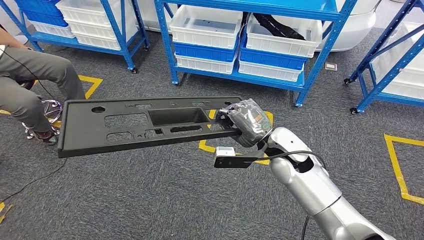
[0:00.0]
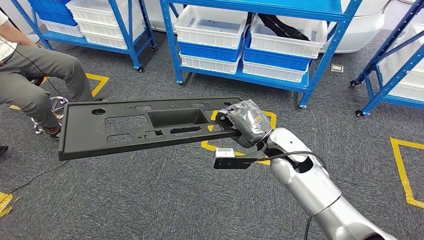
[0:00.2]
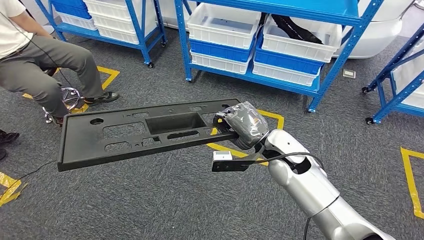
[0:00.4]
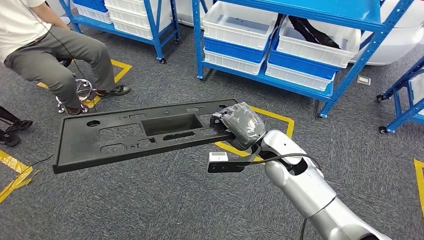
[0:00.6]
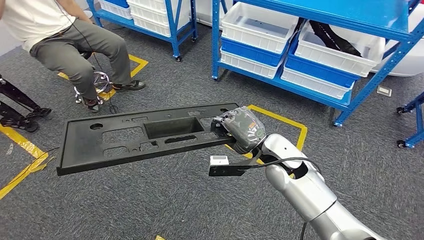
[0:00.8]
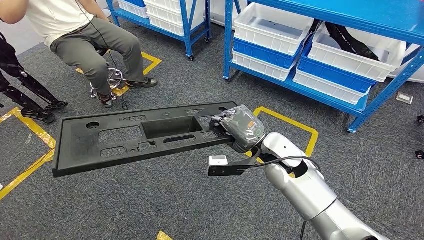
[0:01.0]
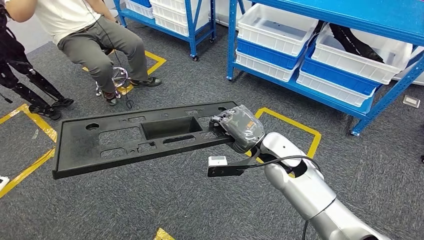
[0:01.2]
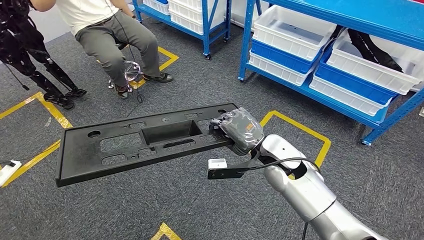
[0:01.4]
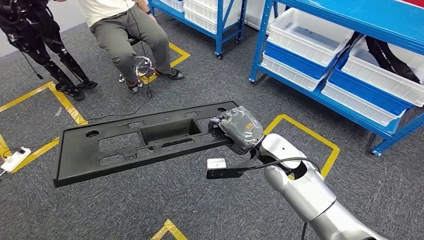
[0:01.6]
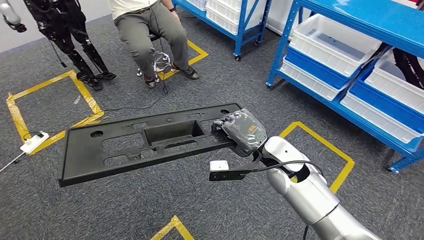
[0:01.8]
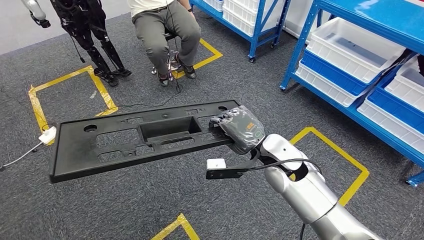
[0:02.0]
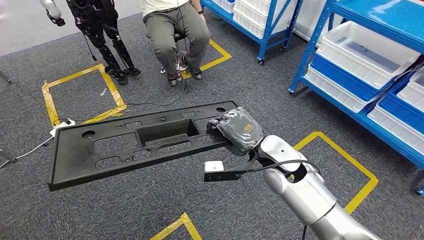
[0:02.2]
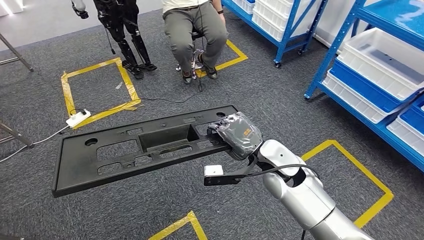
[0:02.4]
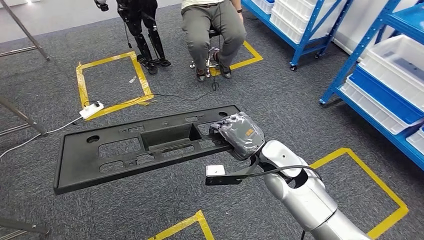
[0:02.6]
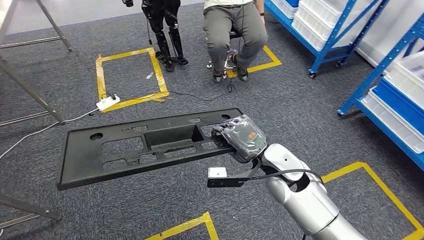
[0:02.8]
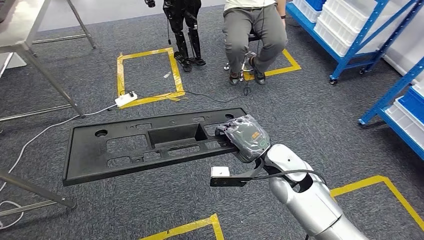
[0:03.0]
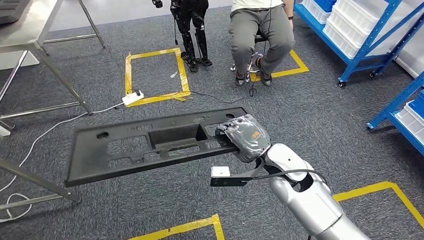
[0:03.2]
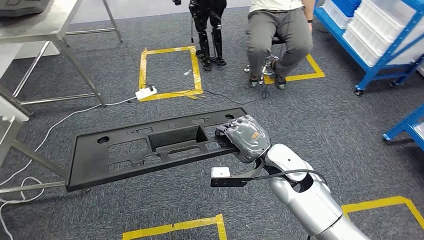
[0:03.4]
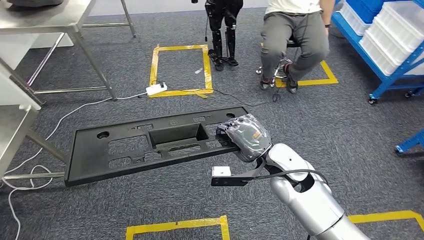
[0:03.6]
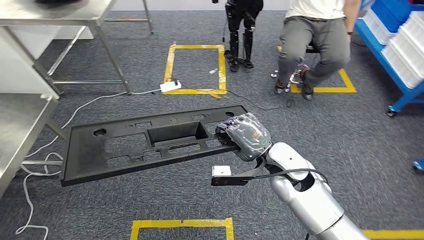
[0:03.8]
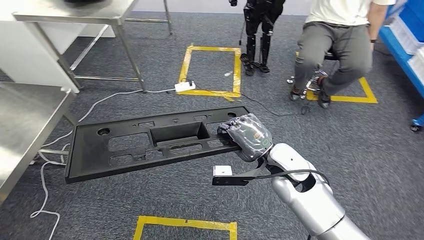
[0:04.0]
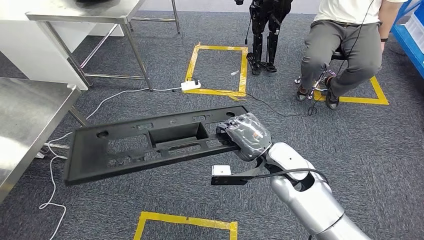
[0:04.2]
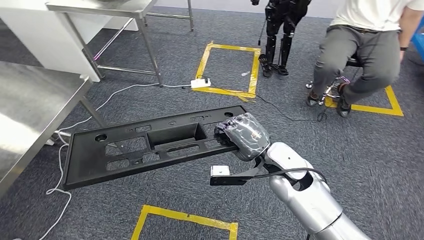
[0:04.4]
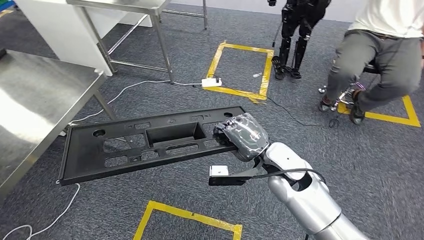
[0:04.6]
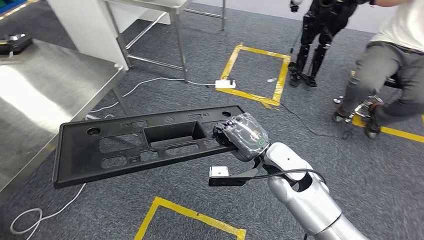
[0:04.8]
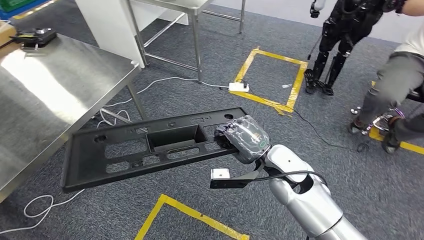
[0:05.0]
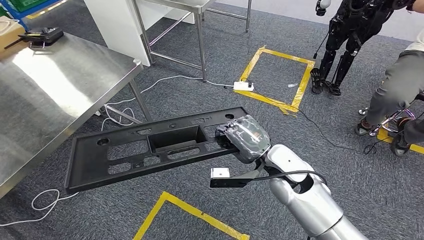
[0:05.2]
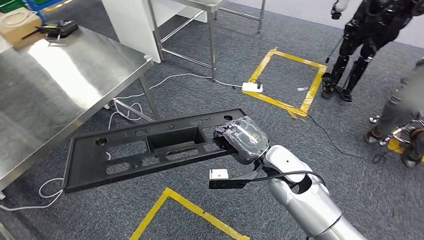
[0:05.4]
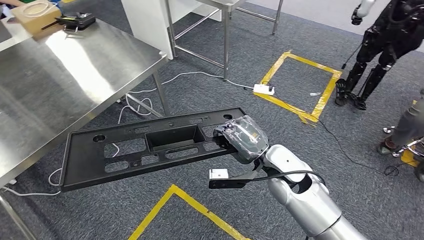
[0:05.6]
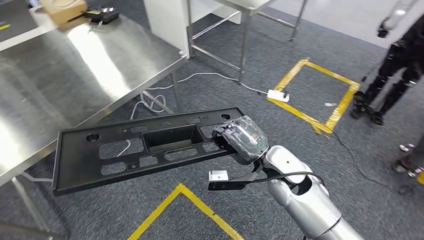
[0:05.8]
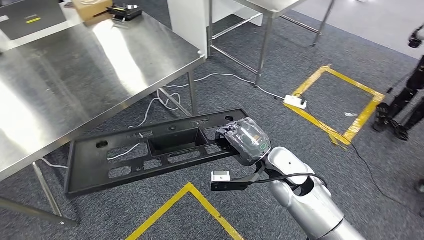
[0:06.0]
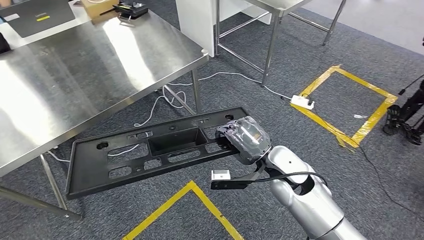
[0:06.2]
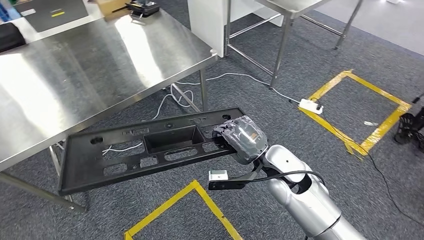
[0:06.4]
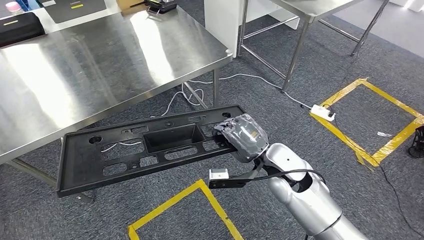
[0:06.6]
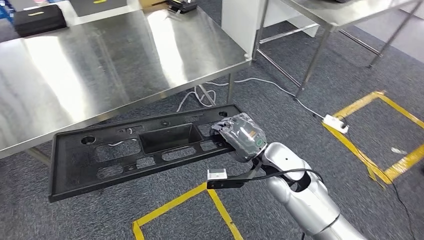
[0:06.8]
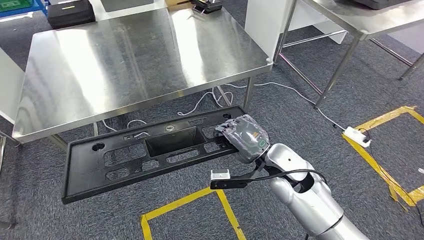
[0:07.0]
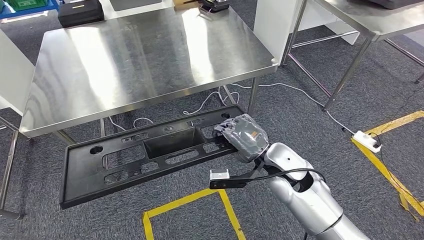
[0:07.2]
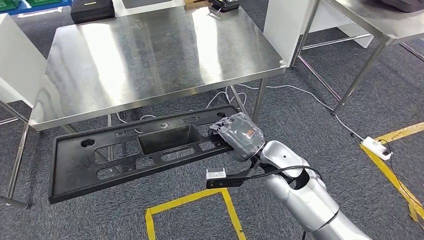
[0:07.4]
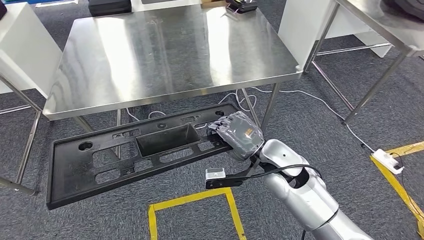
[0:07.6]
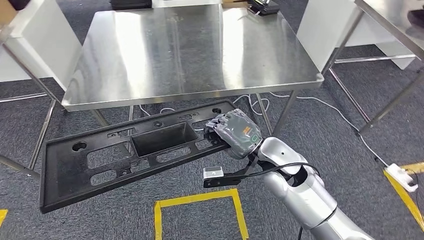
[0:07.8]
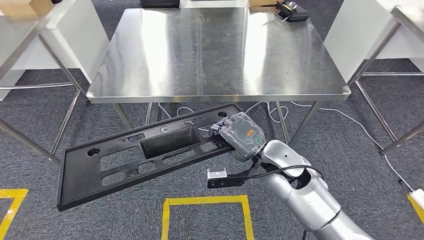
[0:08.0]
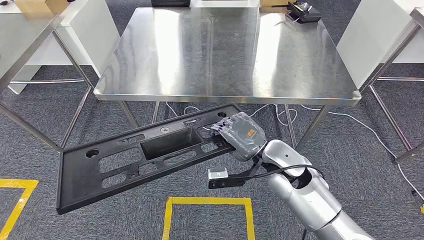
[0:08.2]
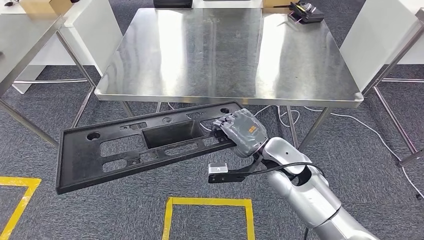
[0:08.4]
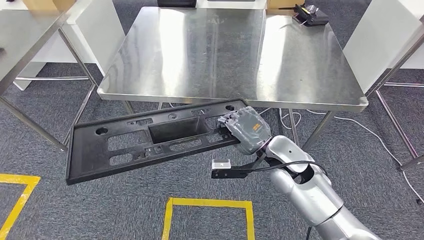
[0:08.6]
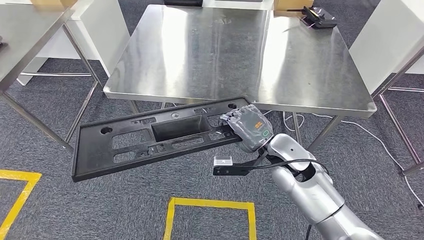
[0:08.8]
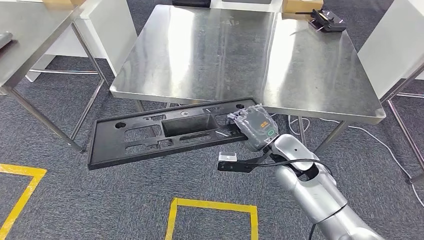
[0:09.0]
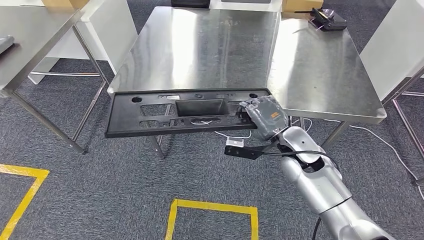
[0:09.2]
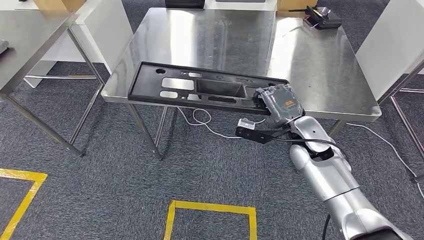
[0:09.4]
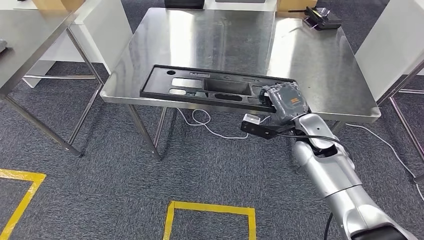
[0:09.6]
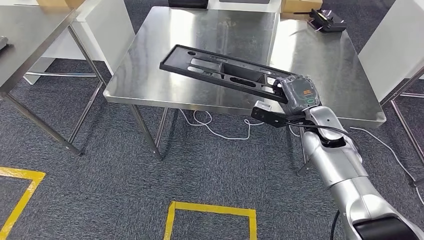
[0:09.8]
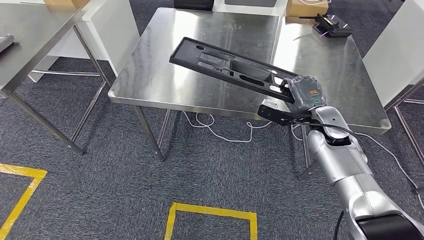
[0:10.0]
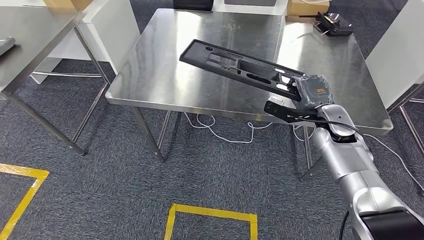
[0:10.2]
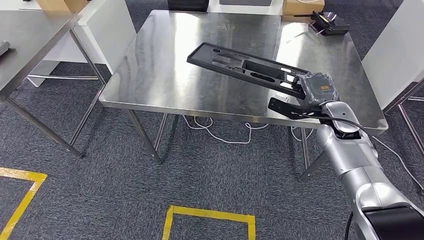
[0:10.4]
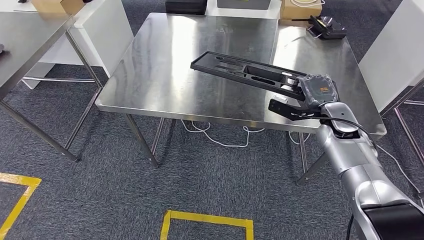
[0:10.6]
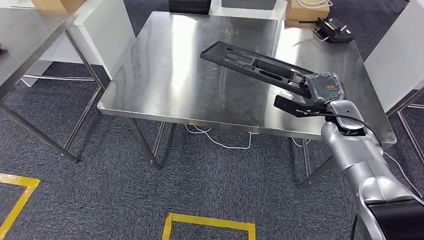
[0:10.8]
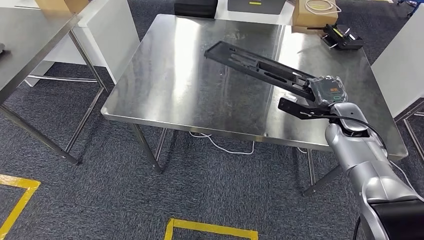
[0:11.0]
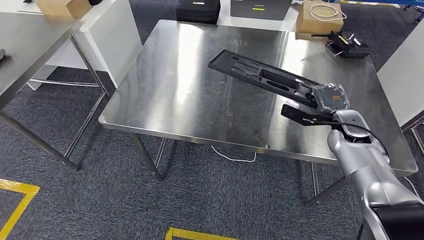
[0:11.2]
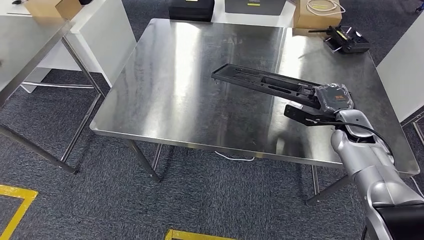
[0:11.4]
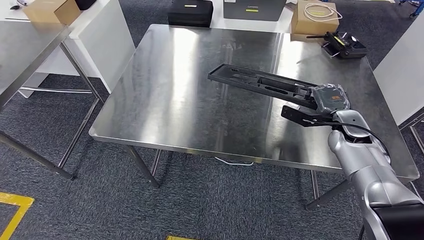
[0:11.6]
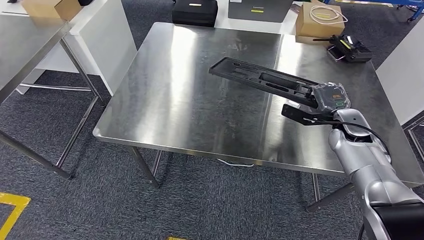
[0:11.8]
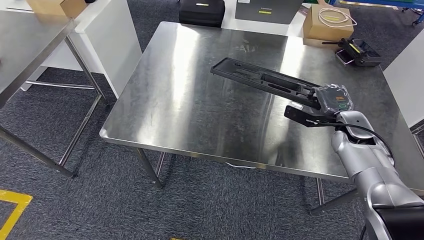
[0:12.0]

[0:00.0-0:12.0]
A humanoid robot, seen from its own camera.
Step, 0:00.0 to 0:08.4: Move the large material to the workbench.

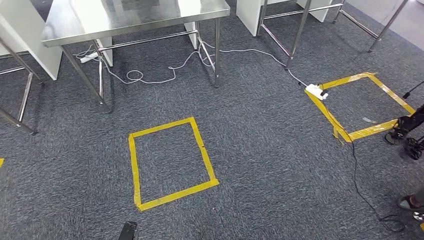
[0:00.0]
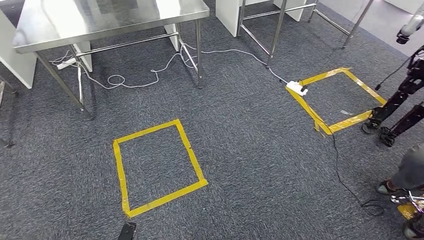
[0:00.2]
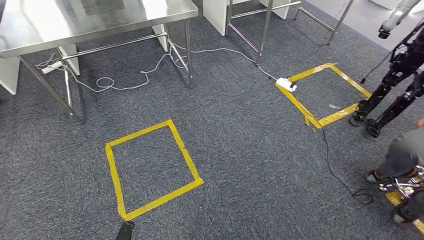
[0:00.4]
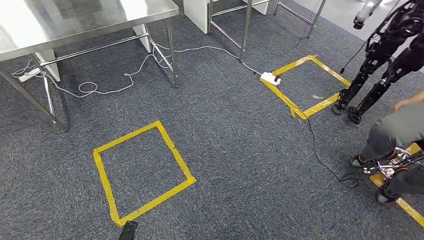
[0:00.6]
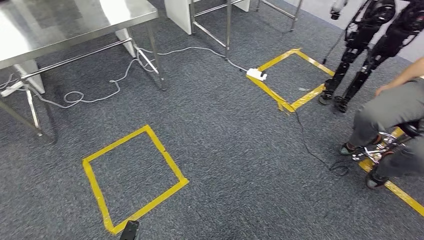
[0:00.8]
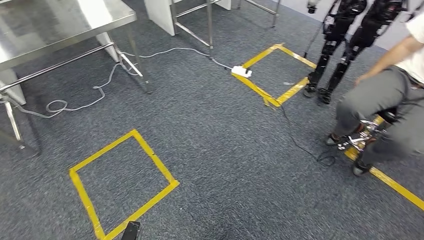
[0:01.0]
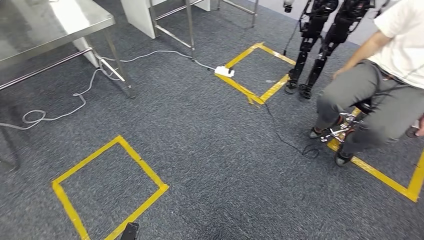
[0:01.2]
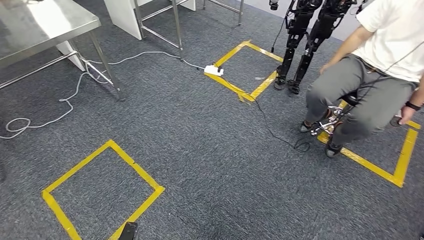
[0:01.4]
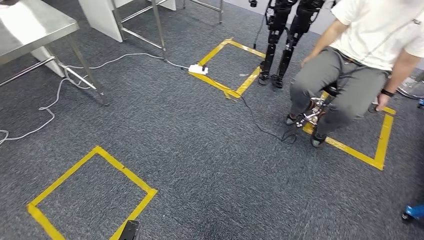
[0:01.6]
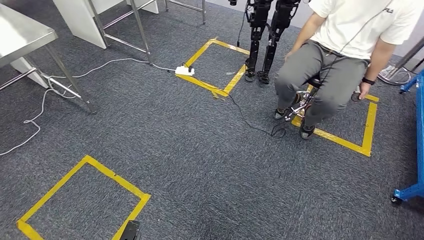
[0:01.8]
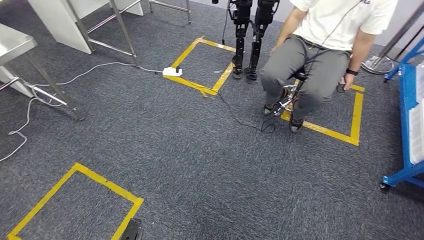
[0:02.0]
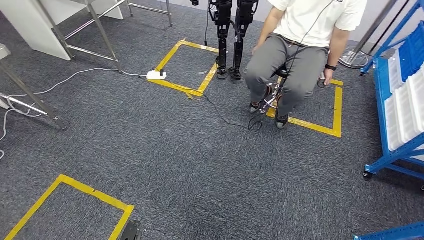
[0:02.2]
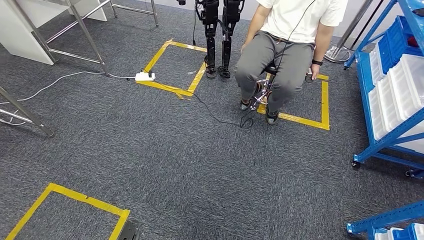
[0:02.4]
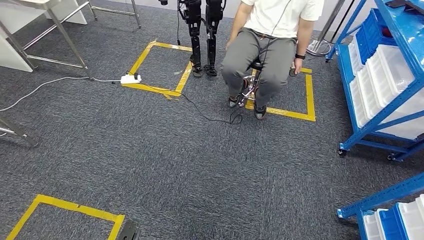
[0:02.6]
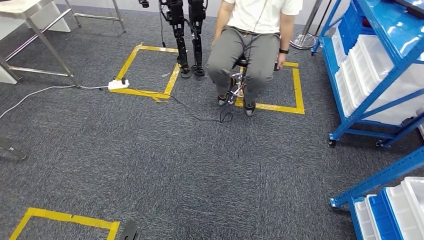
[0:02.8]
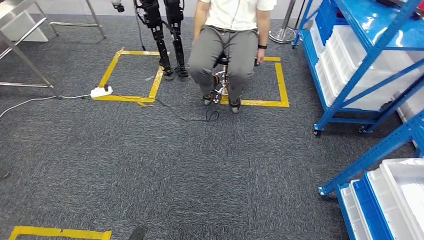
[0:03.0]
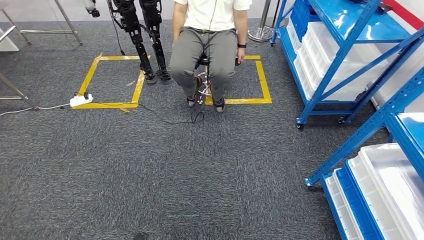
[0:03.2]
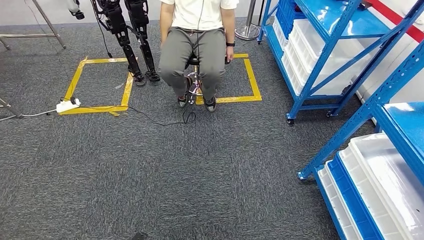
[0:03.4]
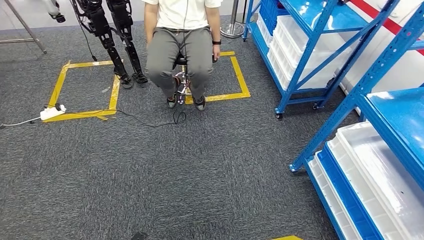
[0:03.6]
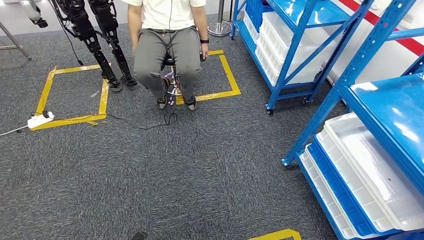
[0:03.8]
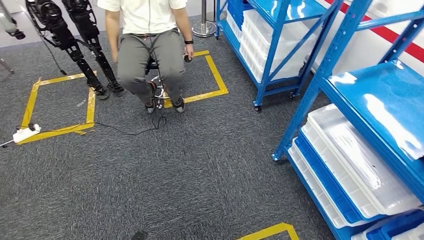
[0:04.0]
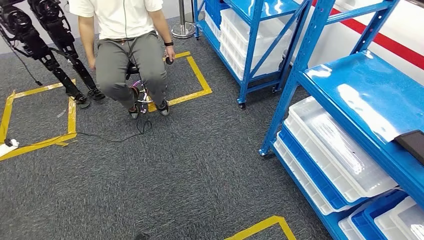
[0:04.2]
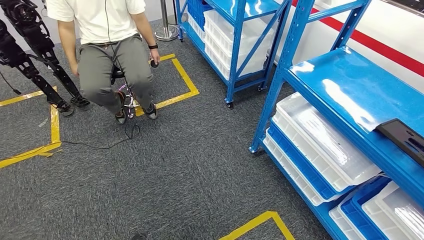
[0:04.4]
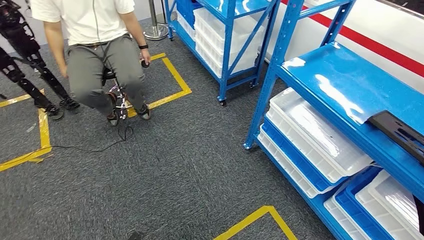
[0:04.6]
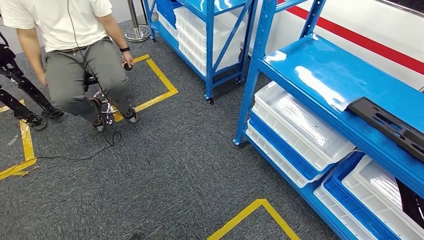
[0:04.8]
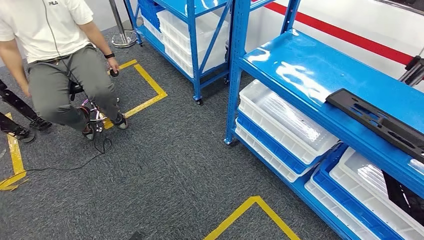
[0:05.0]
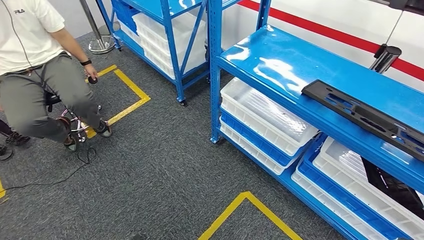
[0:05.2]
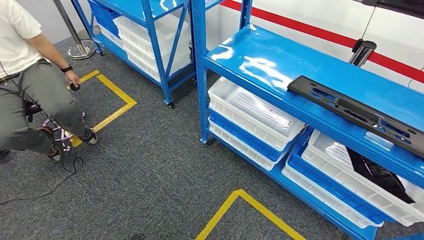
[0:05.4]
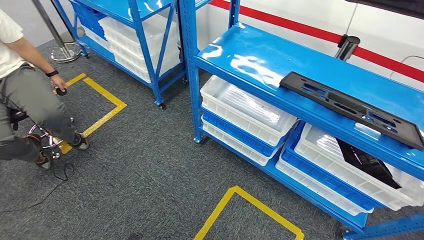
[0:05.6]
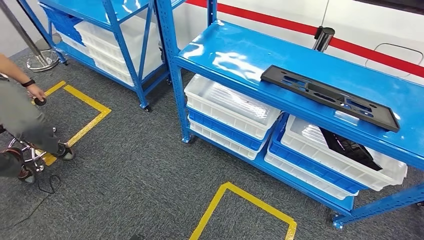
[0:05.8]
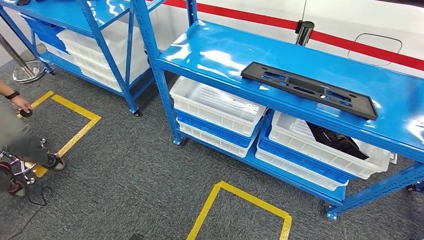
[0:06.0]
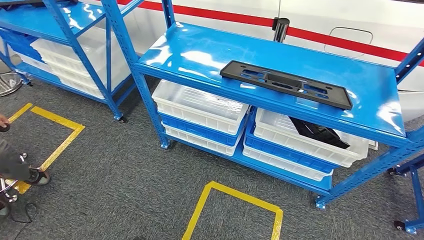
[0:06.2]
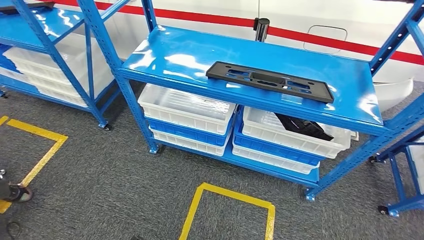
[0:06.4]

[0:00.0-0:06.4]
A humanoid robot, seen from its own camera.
Step, 0:00.0 to 0:06.4: Move to the initial position of the shelf.
